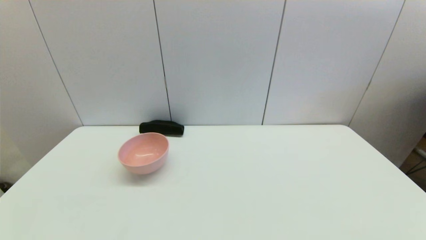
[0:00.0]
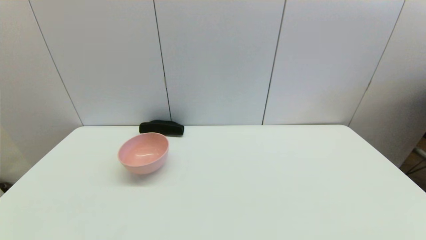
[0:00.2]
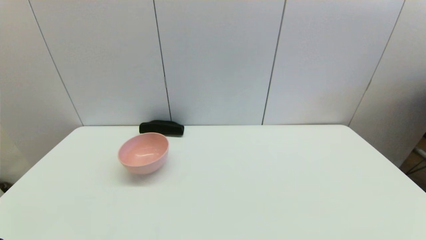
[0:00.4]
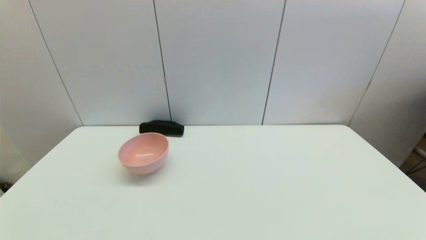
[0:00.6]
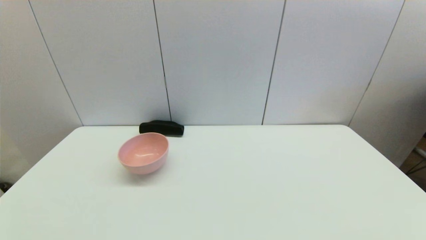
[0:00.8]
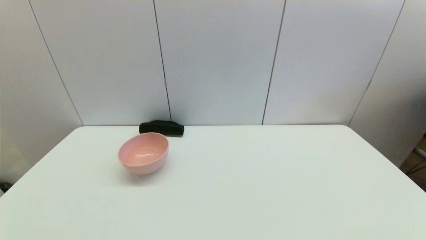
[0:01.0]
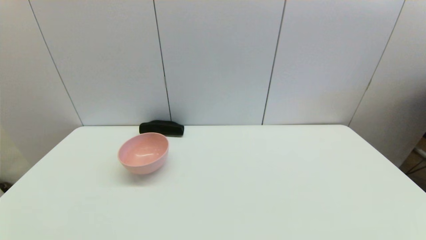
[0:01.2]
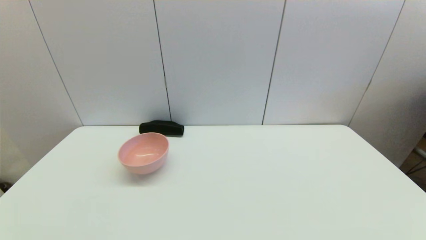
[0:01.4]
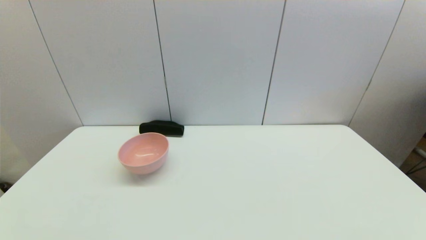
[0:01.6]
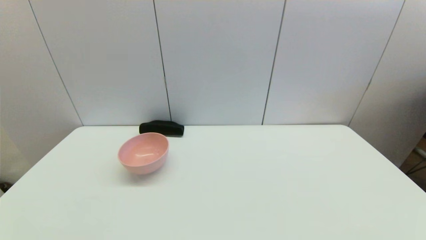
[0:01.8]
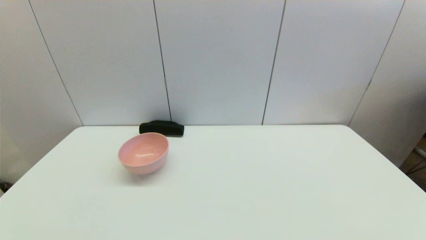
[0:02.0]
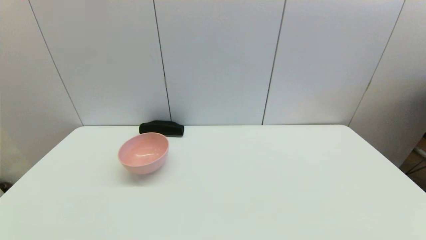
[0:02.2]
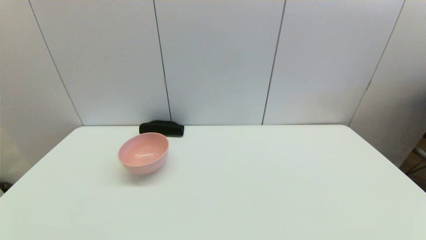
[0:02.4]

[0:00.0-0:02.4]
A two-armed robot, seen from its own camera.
0:01.2 to 0:02.4: Neither gripper changes place.
